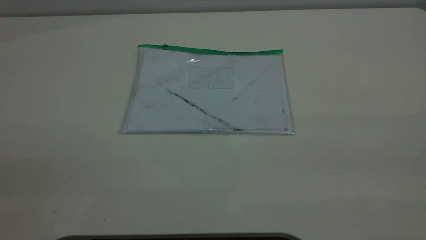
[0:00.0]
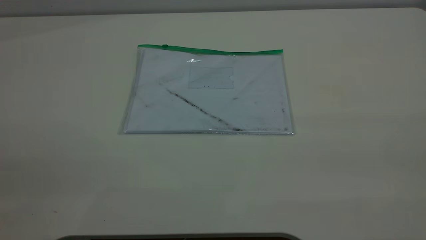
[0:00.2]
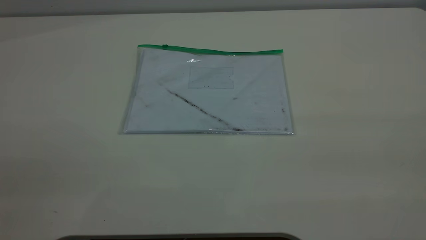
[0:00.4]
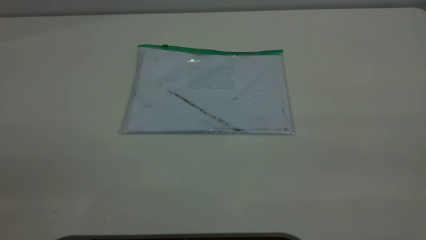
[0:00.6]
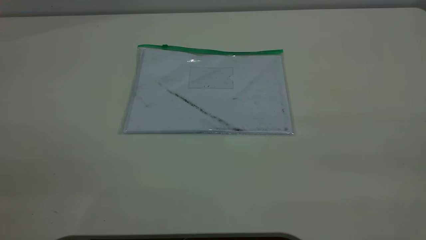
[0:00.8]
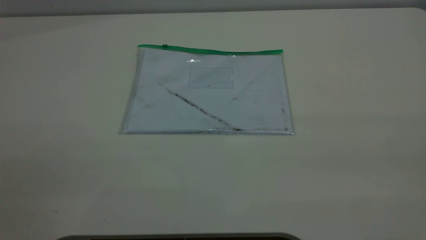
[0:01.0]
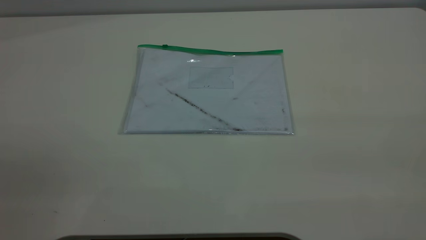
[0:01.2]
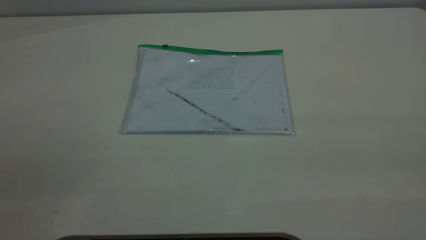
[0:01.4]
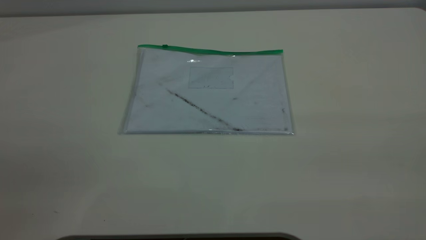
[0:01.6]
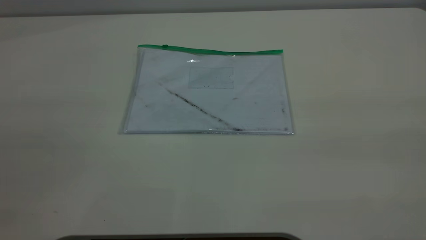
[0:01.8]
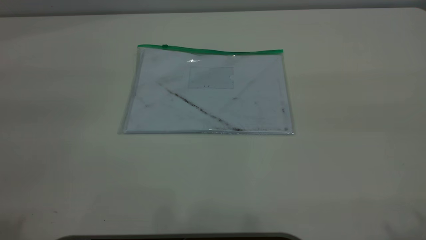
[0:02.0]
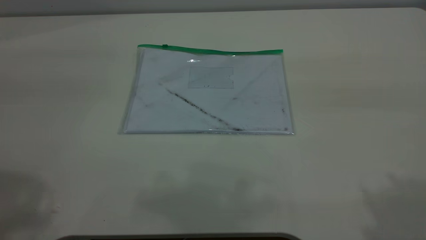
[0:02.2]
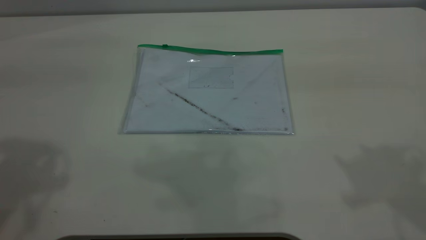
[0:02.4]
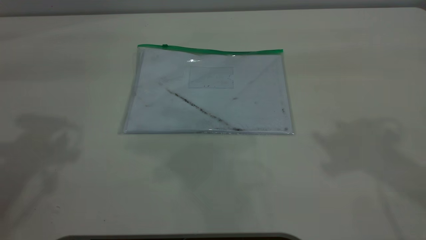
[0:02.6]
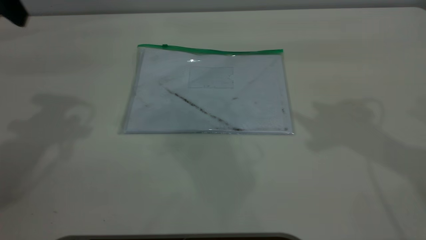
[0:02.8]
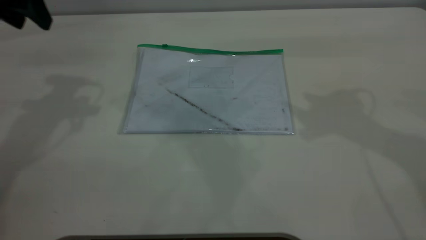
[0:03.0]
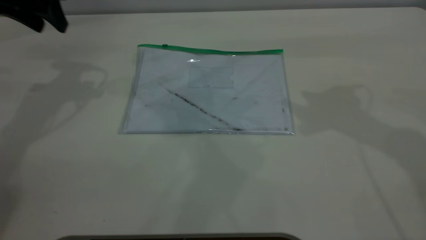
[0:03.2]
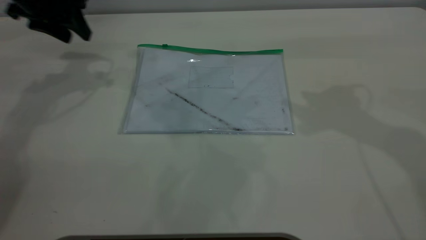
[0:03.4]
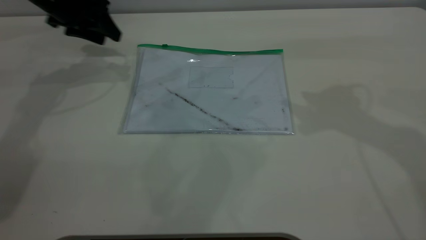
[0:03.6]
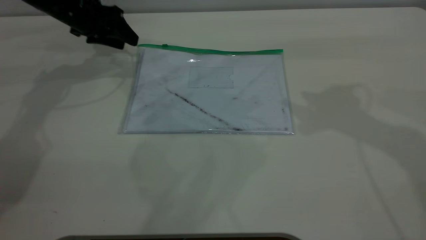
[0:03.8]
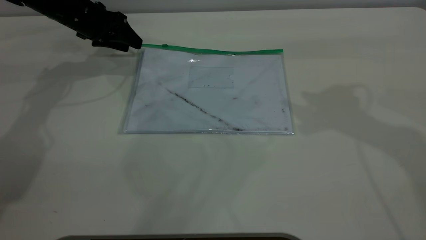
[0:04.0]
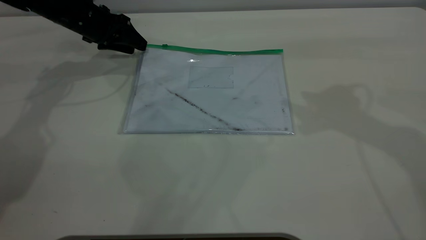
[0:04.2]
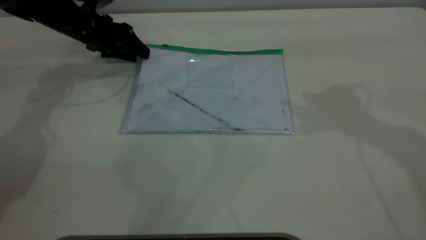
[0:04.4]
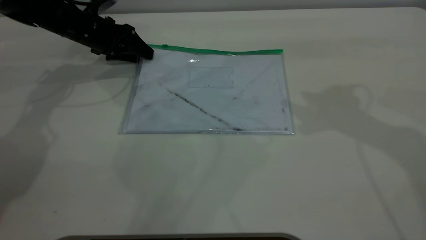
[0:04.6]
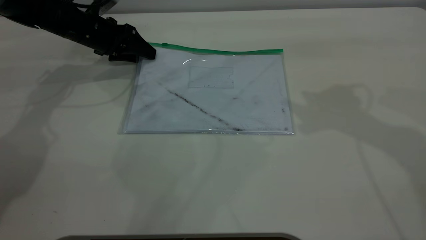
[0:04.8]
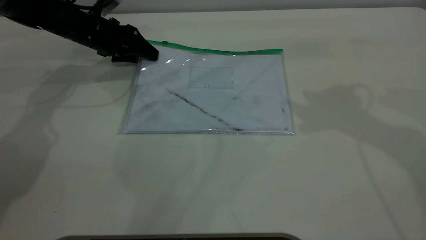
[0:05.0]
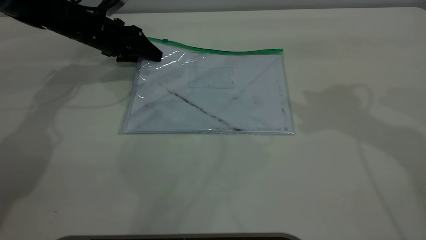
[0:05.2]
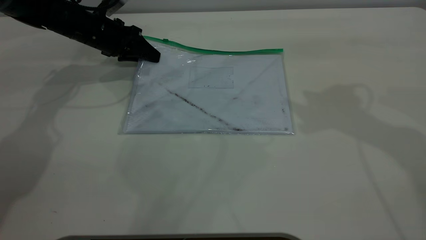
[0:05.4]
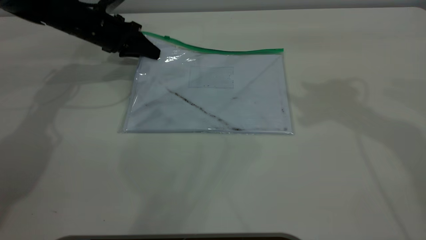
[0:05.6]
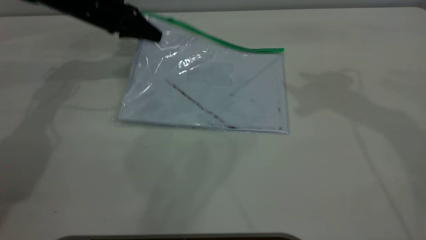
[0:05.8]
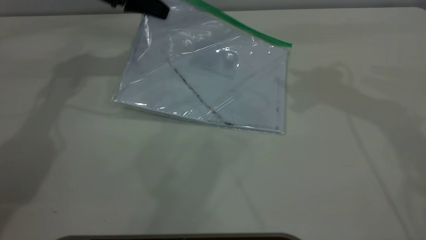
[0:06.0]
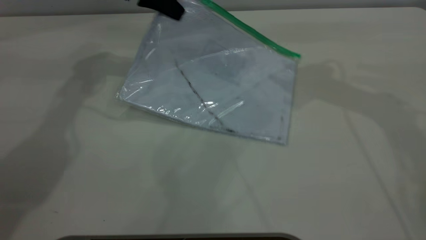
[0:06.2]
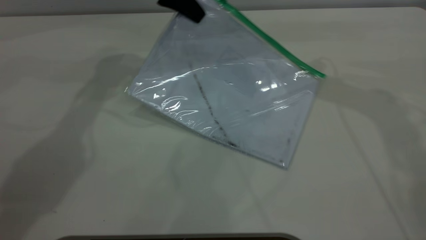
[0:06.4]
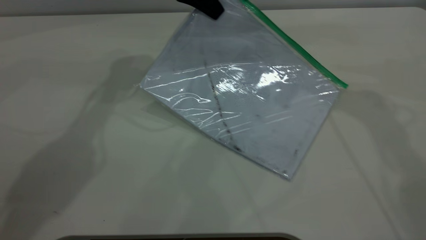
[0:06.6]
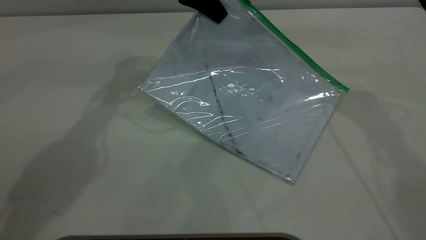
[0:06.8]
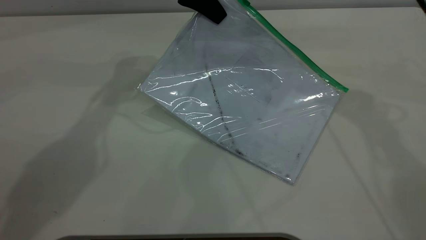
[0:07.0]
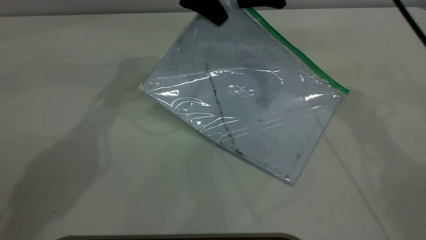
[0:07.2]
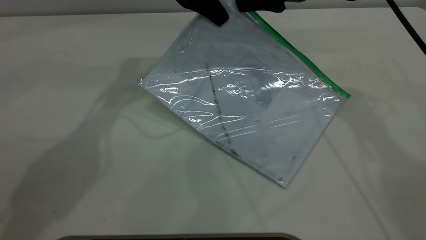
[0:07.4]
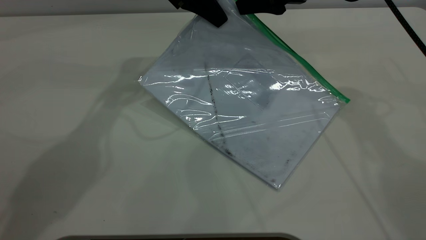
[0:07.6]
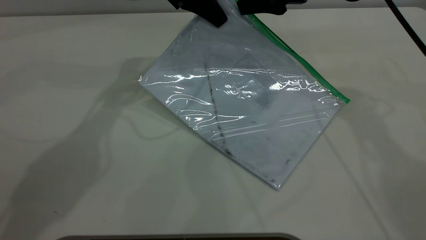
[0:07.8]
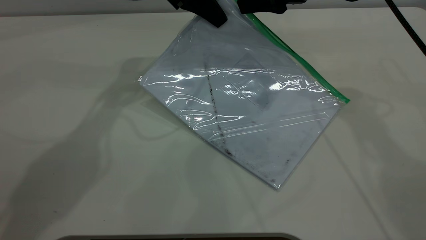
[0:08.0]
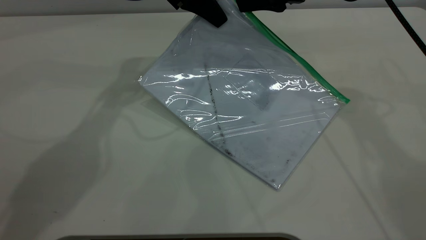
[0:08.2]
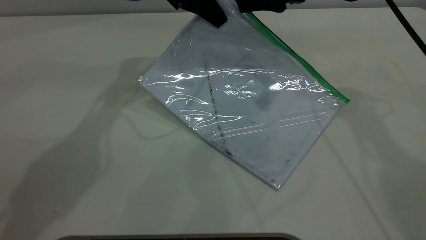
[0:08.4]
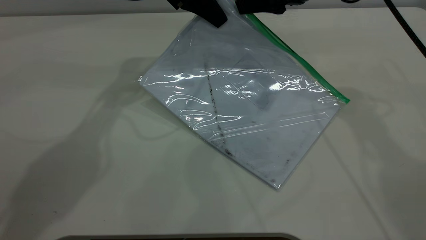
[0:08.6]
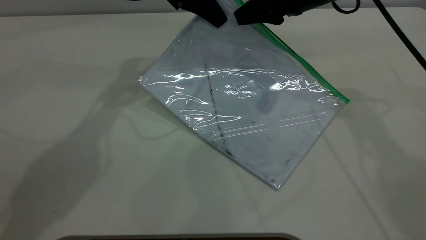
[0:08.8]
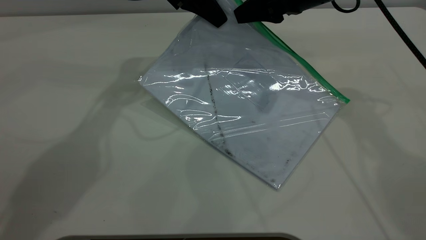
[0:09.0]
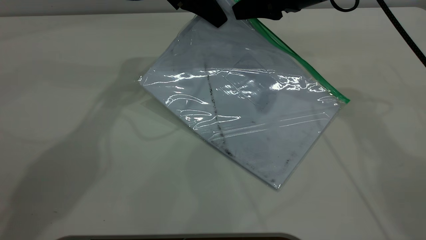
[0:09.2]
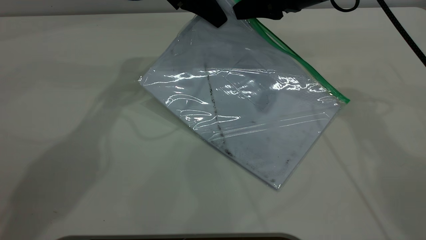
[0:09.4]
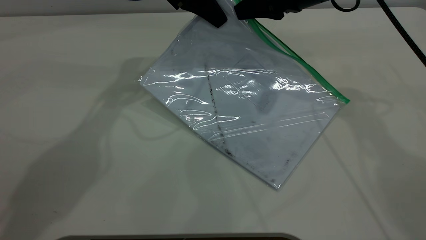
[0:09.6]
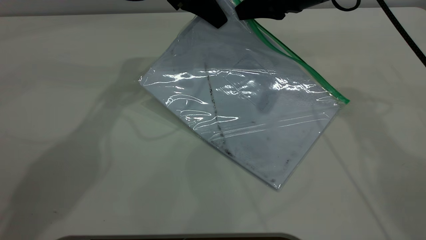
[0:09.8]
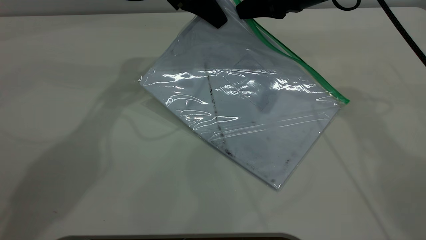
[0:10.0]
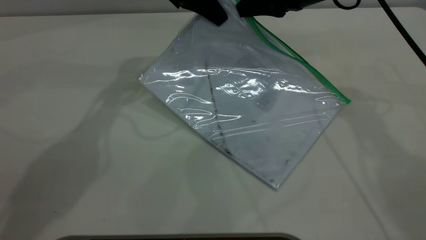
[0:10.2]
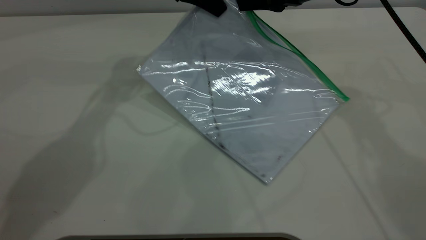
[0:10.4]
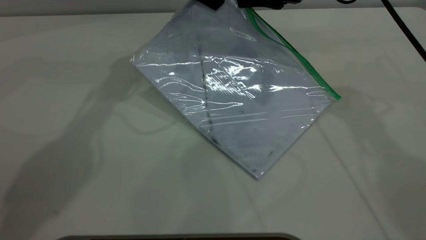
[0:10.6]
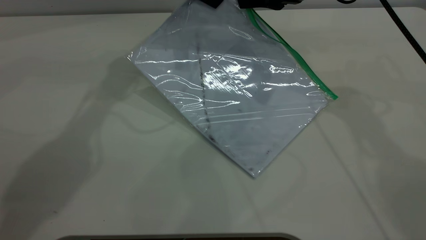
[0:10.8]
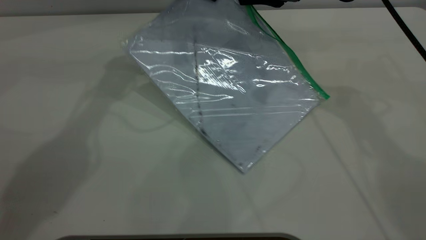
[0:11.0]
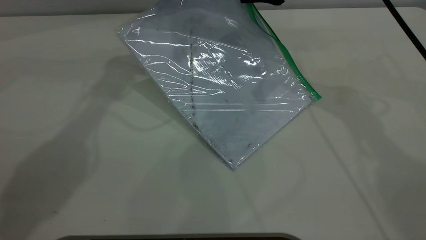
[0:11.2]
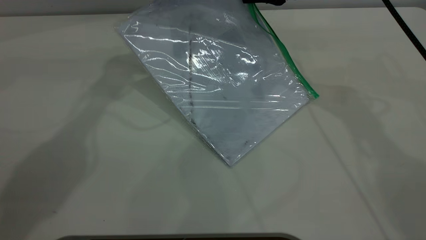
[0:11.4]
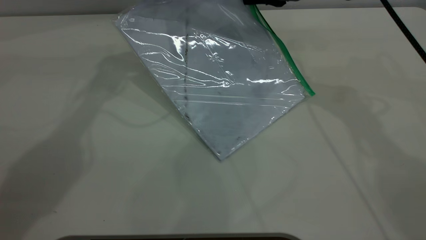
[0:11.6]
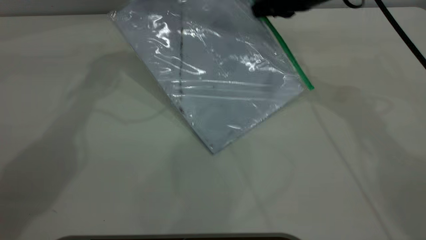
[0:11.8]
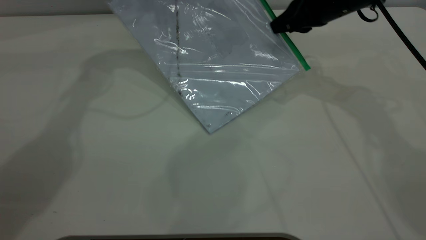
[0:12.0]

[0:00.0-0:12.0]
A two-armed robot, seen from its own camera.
Step, 0:00.0 to 0:06.0: Pick up the transparent plastic bag with the left gripper.
0:00.0 to 0:01.6: Neither gripper changes place.
0:01.6 to 0:03.0: The left gripper heads forward, covering roughly 40 cm.
0:03.0 to 0:04.4: The left gripper goes about 20 cm downward and forward.
0:04.4 to 0:06.0: The right gripper shifts about 5 cm forward, while the left gripper travels upward and to the right by roughly 10 cm, and closes up.
0:06.0 to 0:07.6: The left gripper is displaced to the right by some 10 cm, while the right gripper heads downward and to the left, covering approximately 10 cm.
0:07.6 to 0:09.0: Neither gripper changes place.
0:09.0 to 0:10.4: The right gripper closes.
0:10.4 to 0:12.0: The right gripper moves roughly 5 cm. The left gripper shifts approximately 5 cm to the left.

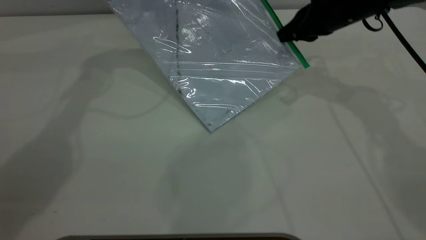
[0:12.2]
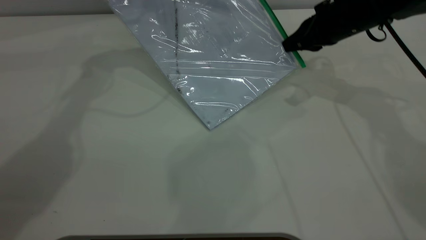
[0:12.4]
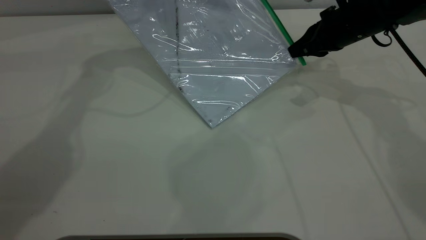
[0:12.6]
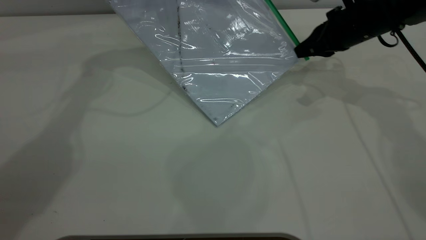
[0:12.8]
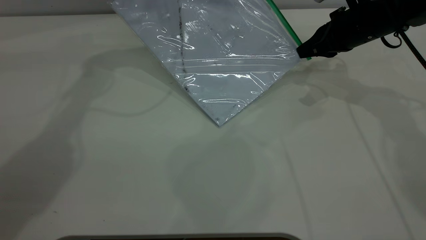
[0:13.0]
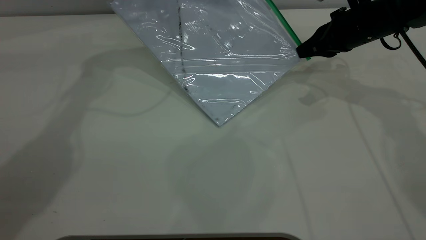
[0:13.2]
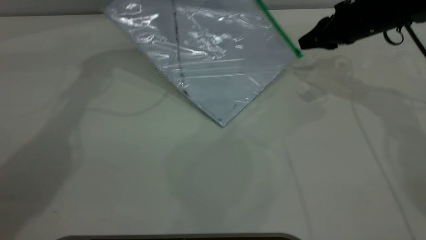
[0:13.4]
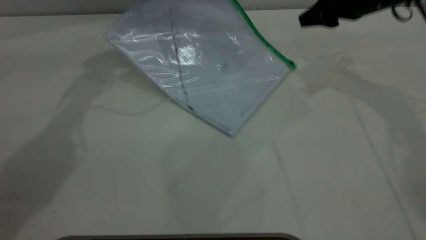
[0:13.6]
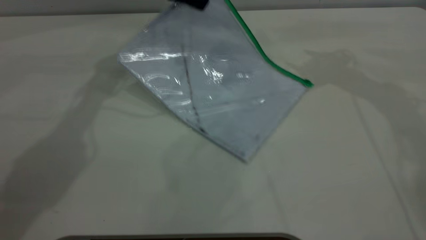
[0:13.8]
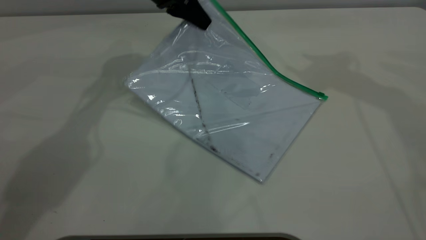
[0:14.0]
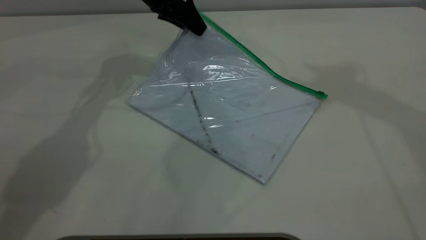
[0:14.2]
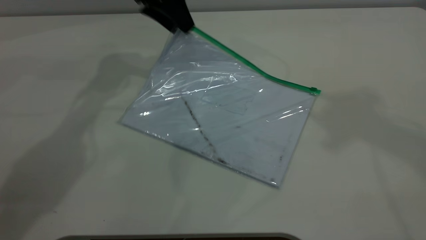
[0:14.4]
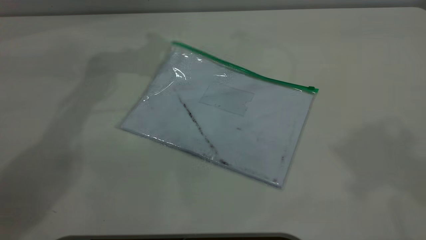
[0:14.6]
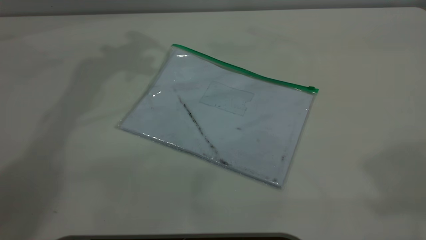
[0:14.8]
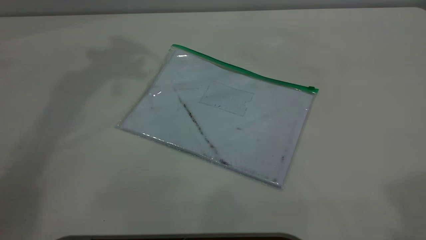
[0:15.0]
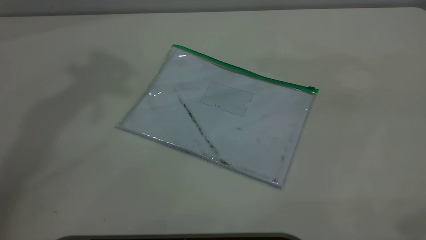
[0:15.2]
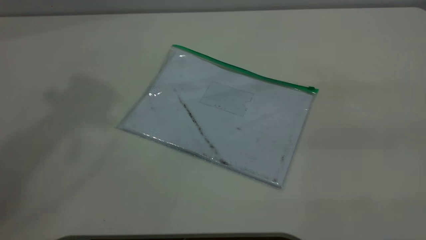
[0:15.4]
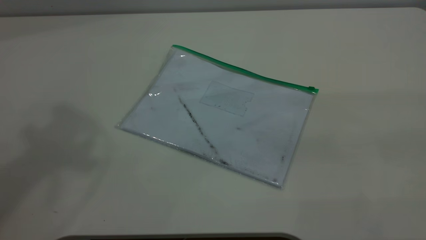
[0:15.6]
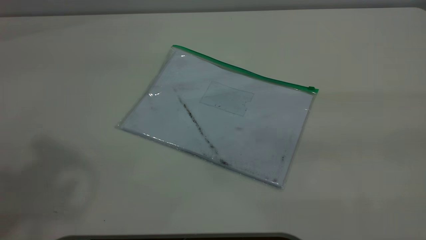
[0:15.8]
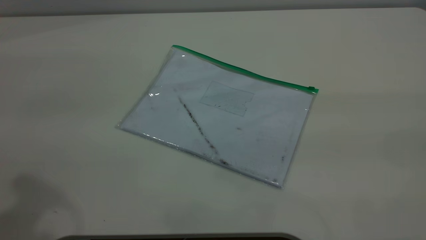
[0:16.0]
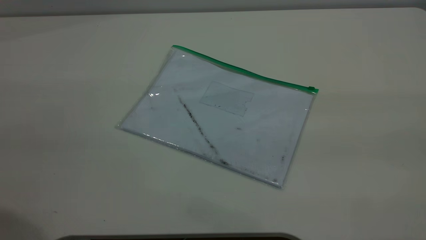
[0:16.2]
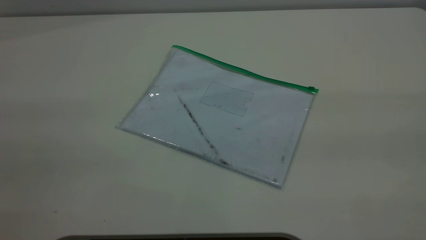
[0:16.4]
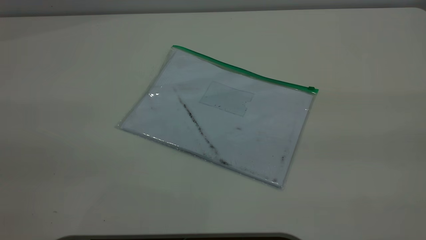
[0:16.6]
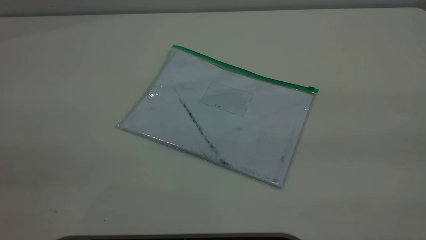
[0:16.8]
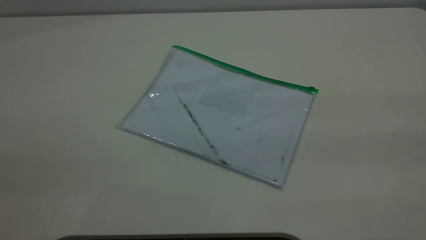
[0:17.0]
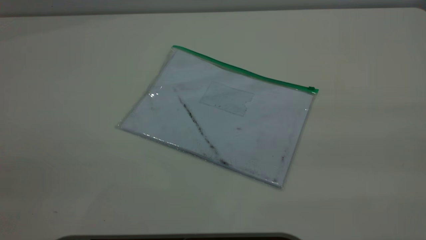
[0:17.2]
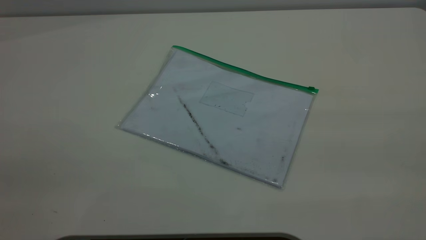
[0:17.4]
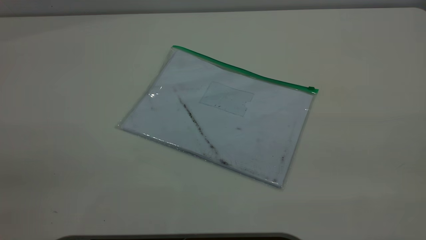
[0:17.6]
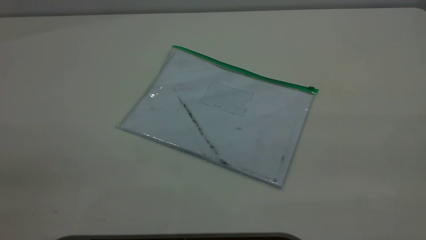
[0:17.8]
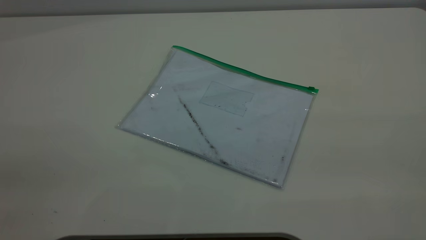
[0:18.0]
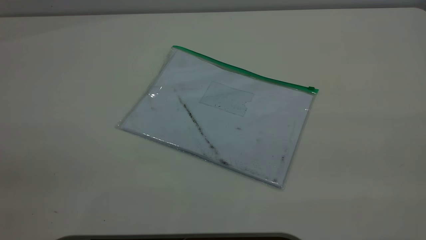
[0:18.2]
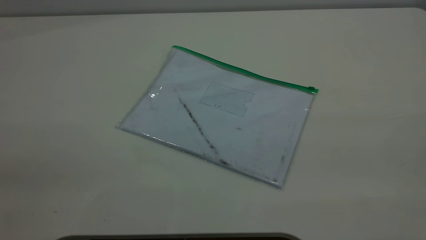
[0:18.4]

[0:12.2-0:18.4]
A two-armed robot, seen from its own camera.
Step, 0:13.6 to 0:14.4: Place the transparent plastic bag.
0:12.2 to 0:13.8: The right gripper travels upward by roughly 10 cm, and opens its fingers. Meanwhile the left gripper moves downward, approximately 10 cm.
0:13.8 to 0:15.4: The left gripper moves upward and backward, about 40 cm, and opens its fingers. Meanwhile the right gripper moves backward, roughly 40 cm.
